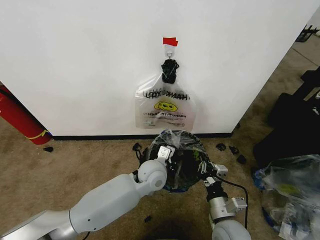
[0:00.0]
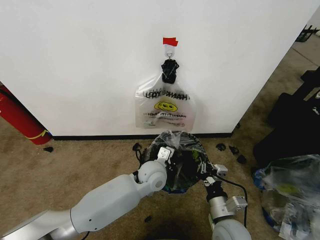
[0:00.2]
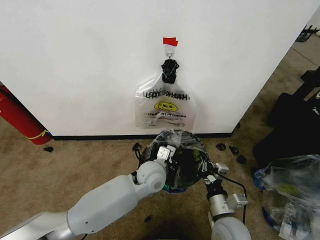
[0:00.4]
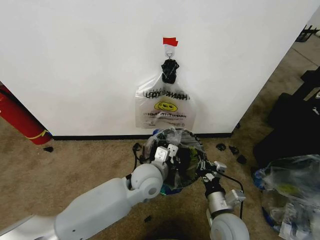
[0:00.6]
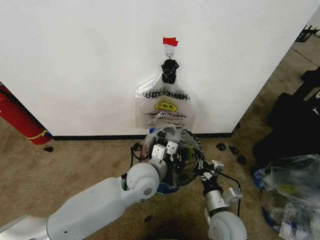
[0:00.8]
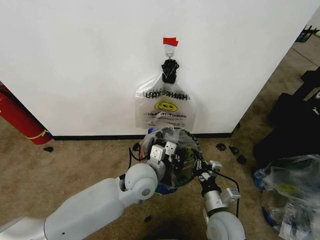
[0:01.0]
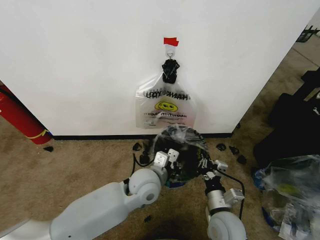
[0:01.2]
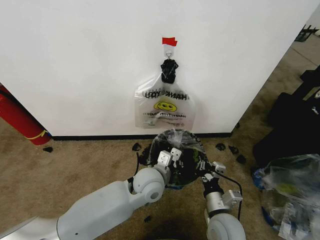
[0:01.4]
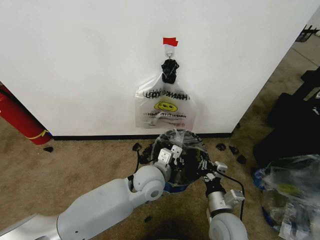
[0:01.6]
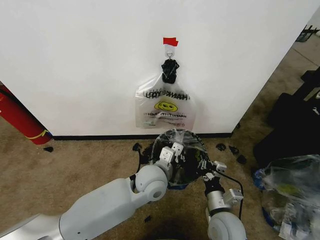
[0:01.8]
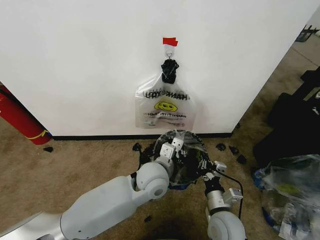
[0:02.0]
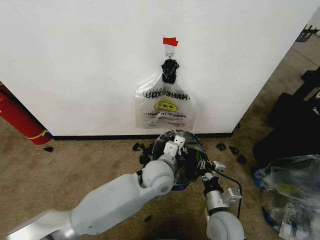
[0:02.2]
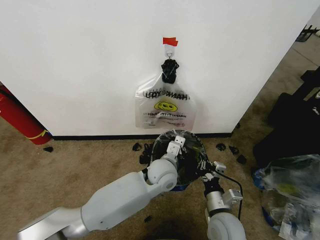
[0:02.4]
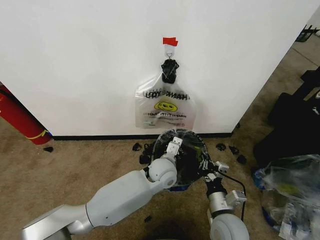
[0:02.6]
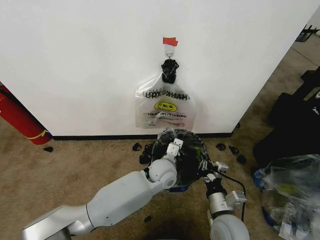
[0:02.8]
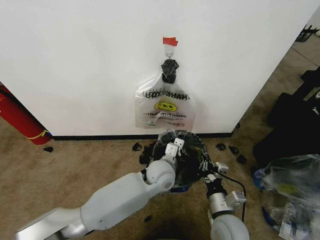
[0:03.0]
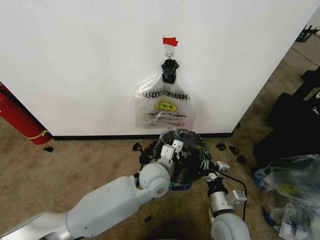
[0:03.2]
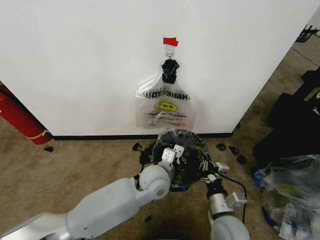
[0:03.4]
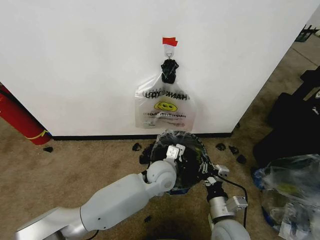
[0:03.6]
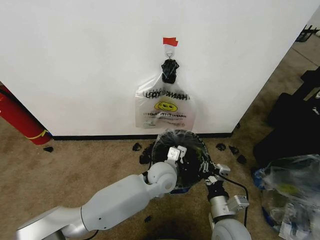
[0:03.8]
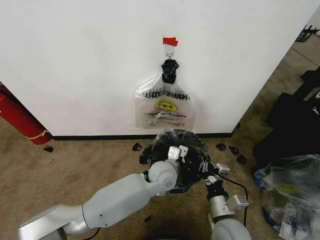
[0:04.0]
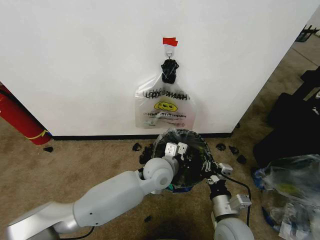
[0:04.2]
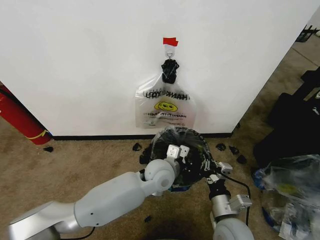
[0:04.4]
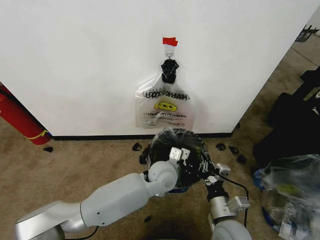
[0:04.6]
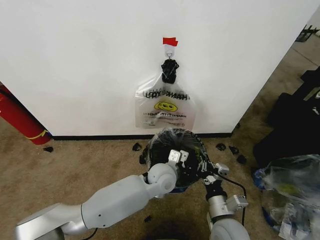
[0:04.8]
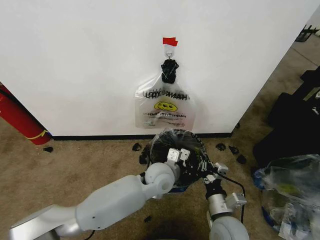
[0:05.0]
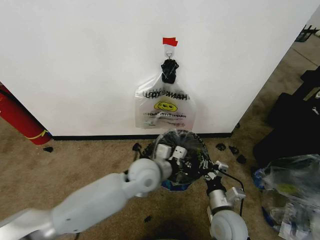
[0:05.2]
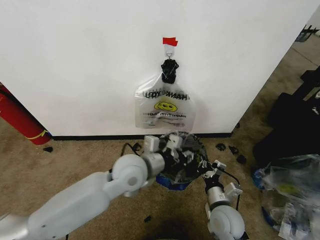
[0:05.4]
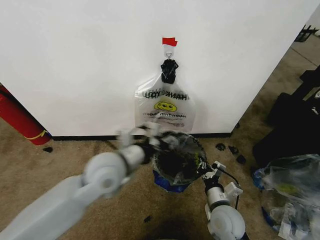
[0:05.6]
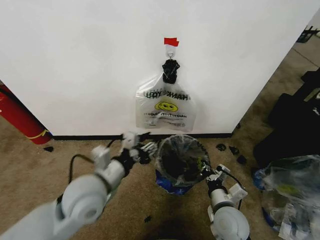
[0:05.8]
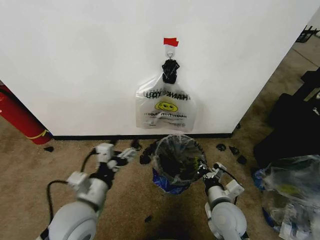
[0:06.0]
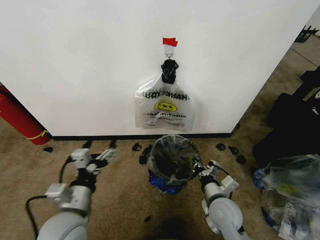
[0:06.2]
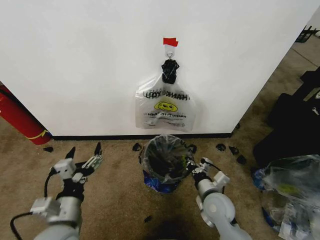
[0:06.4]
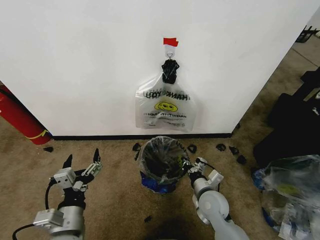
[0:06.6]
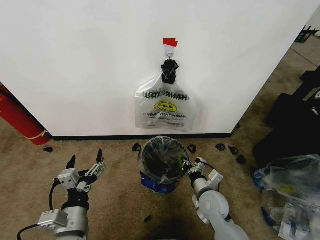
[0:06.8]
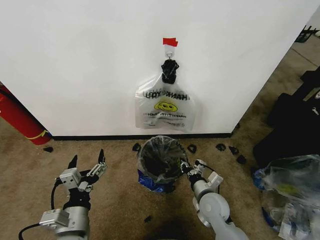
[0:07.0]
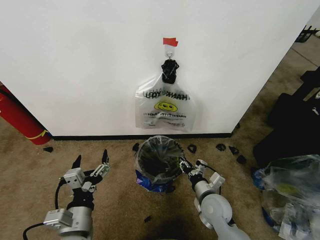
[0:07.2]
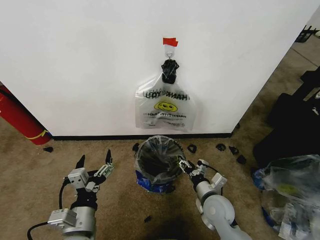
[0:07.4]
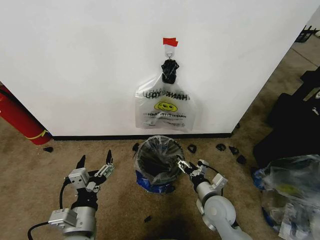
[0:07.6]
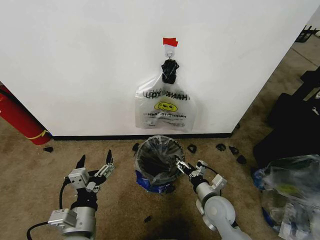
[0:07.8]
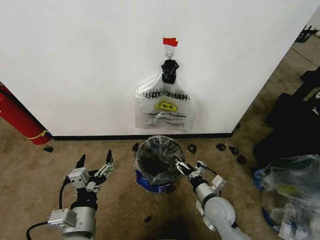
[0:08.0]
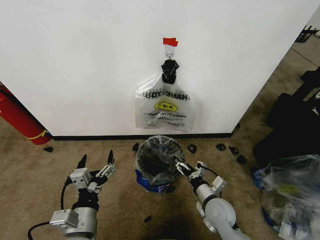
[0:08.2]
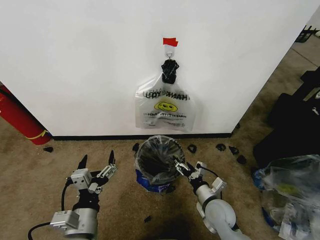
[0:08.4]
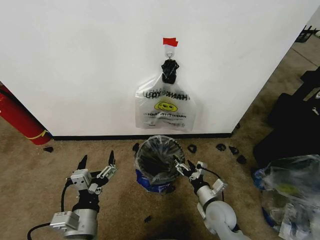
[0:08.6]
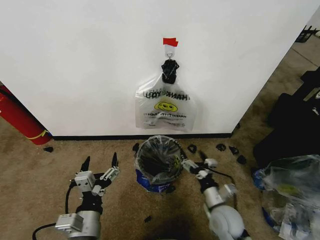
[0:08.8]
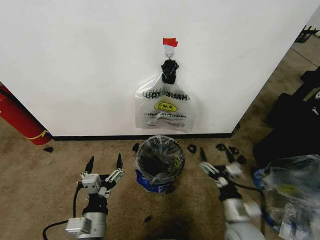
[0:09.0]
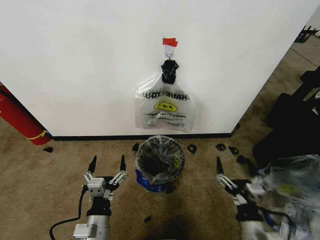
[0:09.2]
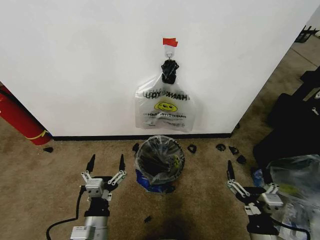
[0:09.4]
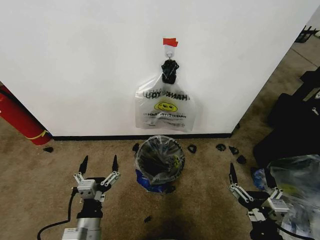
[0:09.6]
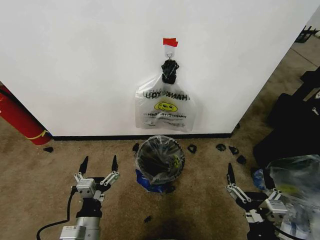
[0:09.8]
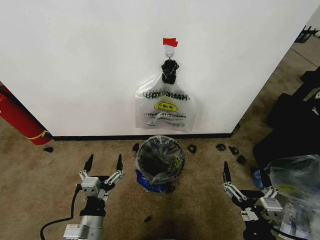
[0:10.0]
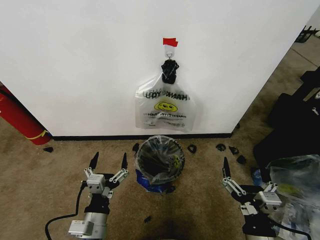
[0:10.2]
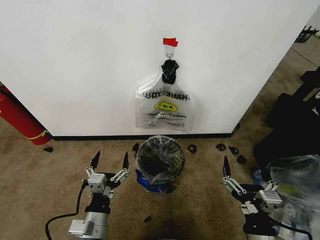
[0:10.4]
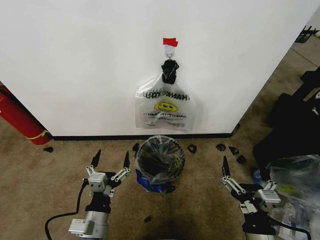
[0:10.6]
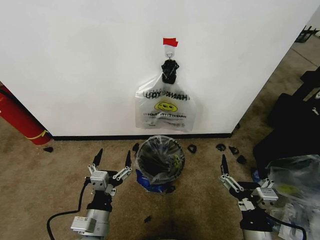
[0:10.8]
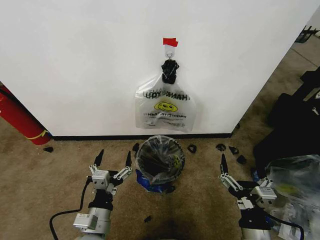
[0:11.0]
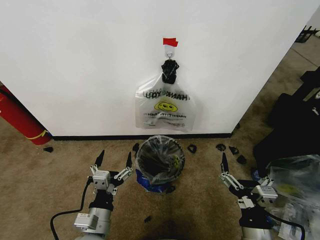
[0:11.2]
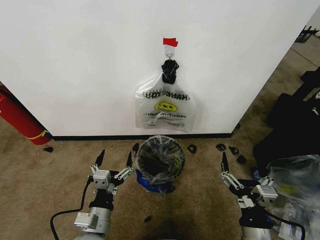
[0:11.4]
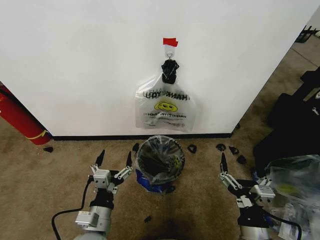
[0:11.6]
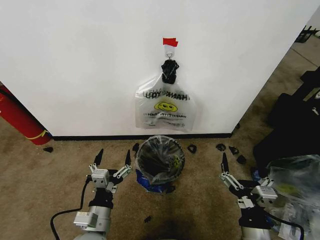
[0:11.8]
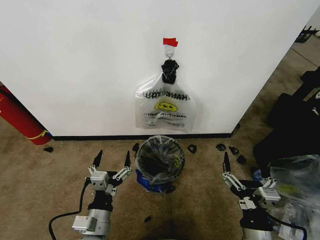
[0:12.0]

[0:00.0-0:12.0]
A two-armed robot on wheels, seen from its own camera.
Task of the whole recording: Pick up the garbage bag from the wall and place it over the trash bin.
0:01.6 to 0:03.0: The left gripper shifts by about 5 cm.
0:03.0 to 0:04.4: There are only small adjustments of the grippers.
0:04.4 to 0:06.0: The left gripper is displaced to the left and backward by about 25 cm, and opens up.
0:06.0 to 0:07.6: The right gripper opens up. The left gripper heads backward and downward, covering about 10 cm.
0:07.6 to 0:09.0: The right gripper travels backward by some 10 cm.
0:09.0 to 0:10.4: The right gripper heads backward and upward, covering roughly 10 cm.
0:10.4 to 0:12.0: The grippers move only a little.
